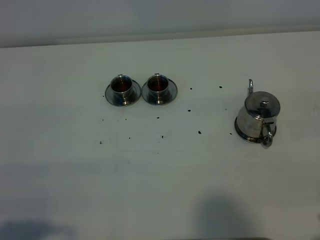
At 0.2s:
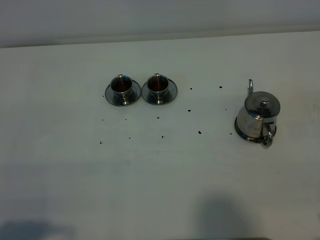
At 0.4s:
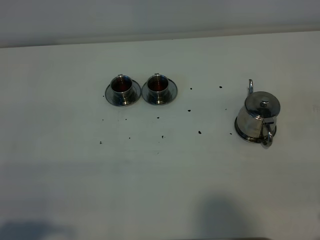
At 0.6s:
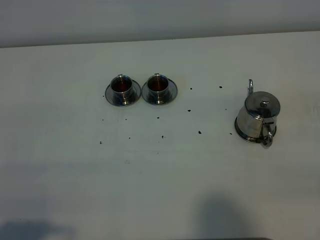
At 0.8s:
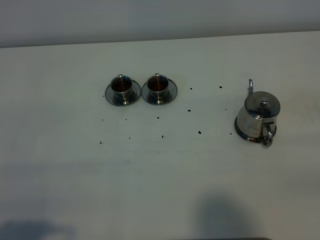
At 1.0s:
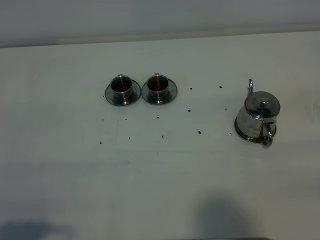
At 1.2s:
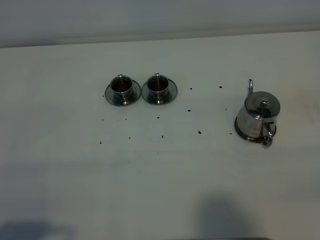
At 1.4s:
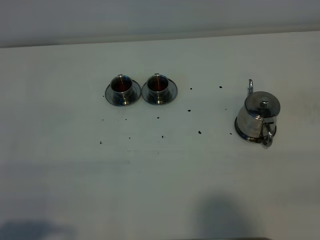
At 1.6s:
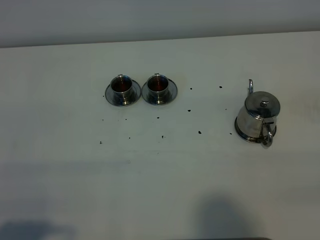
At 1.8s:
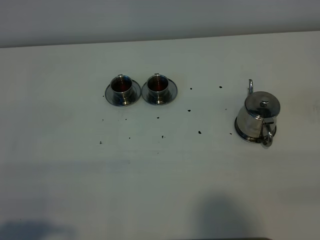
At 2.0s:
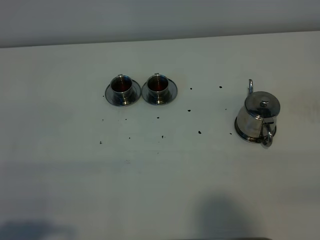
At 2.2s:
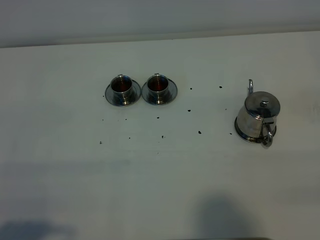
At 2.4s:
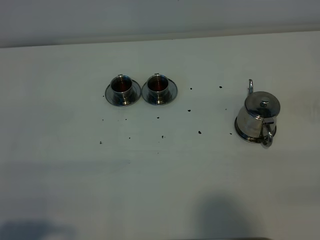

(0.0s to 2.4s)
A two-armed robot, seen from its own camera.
Task of the whole recording: grasp the stainless steel teapot and pour the tea into the two stainless steel teacups one by one, put the stainless steel teapot back in its original place.
1.2s - 2.4s: Both grippers stay about where they are.

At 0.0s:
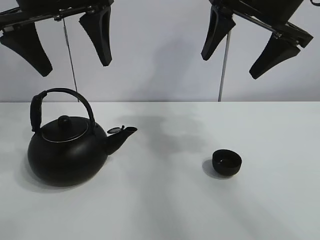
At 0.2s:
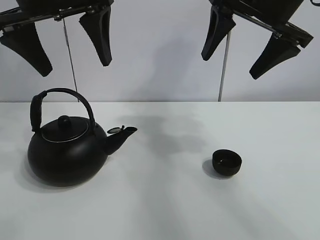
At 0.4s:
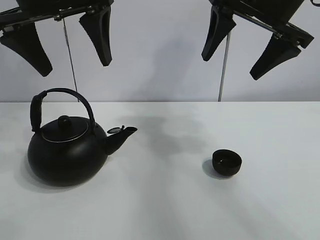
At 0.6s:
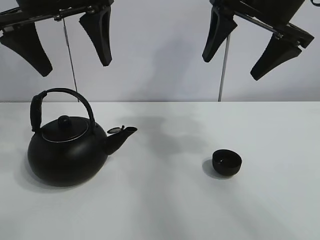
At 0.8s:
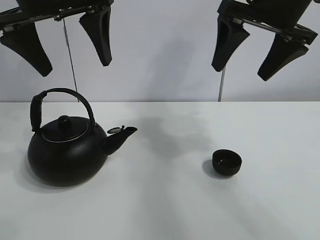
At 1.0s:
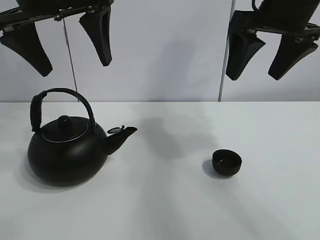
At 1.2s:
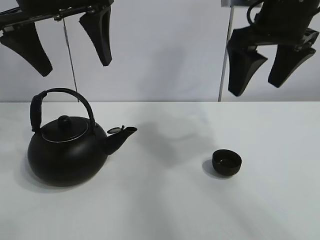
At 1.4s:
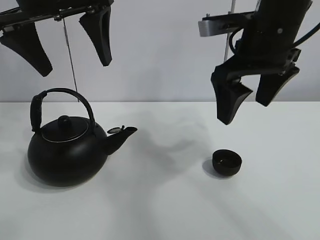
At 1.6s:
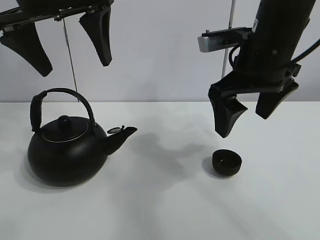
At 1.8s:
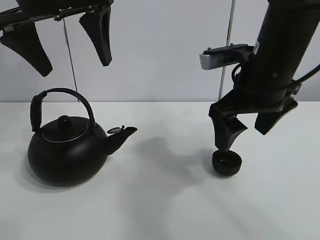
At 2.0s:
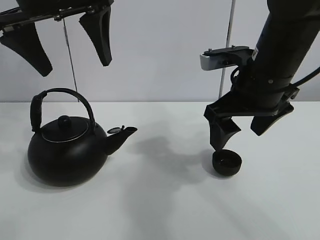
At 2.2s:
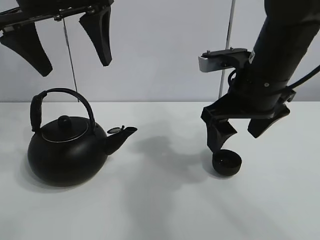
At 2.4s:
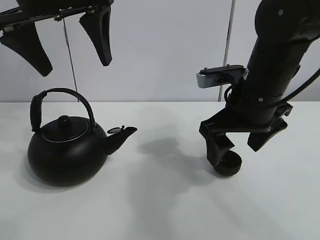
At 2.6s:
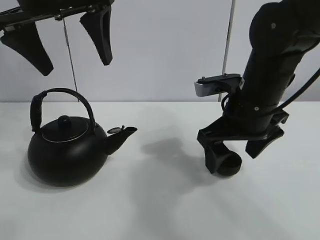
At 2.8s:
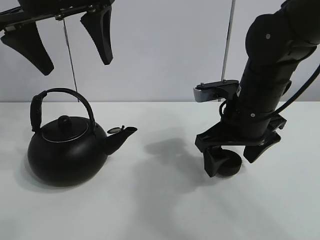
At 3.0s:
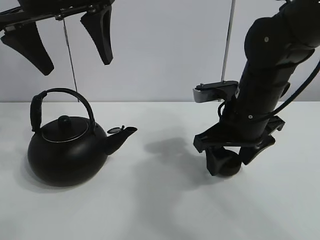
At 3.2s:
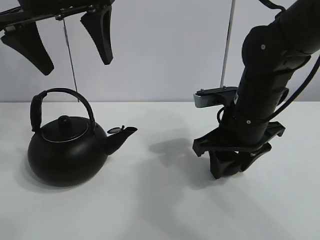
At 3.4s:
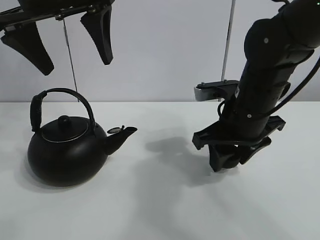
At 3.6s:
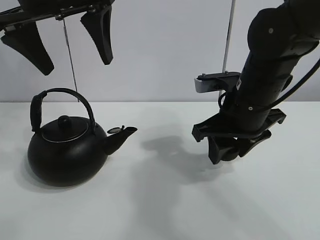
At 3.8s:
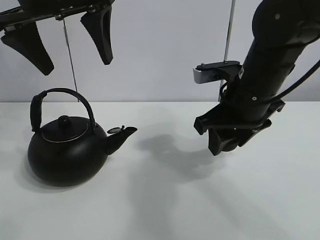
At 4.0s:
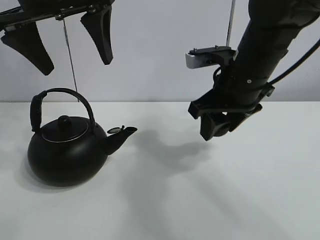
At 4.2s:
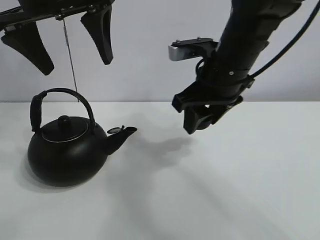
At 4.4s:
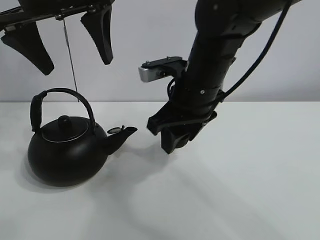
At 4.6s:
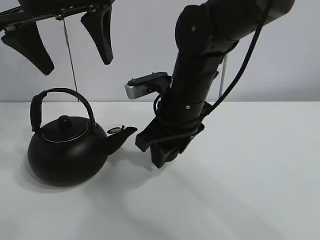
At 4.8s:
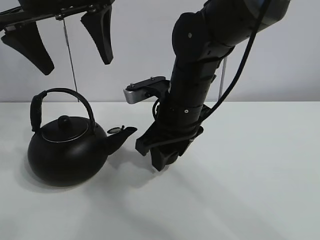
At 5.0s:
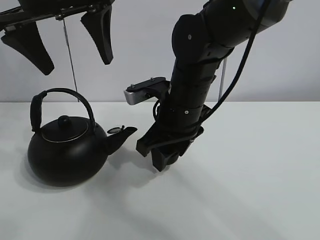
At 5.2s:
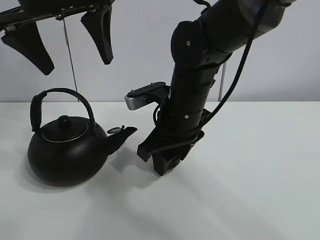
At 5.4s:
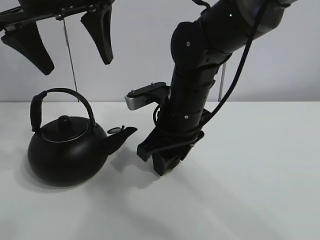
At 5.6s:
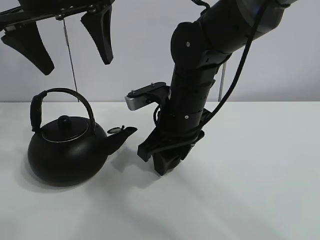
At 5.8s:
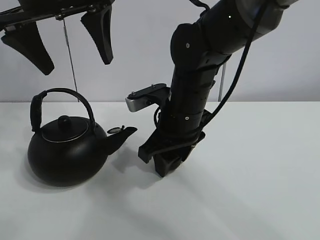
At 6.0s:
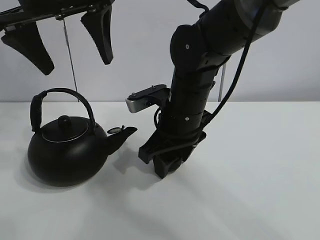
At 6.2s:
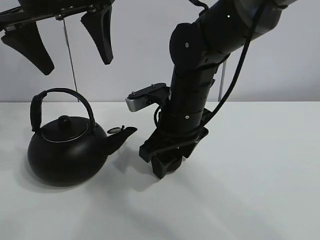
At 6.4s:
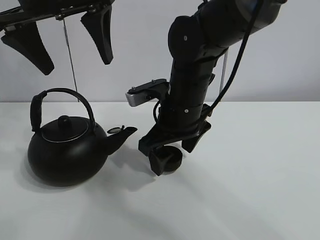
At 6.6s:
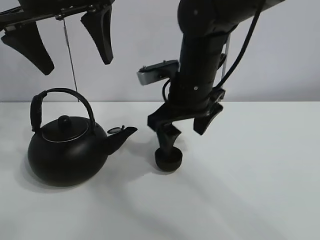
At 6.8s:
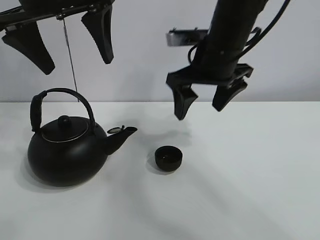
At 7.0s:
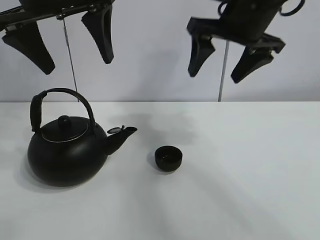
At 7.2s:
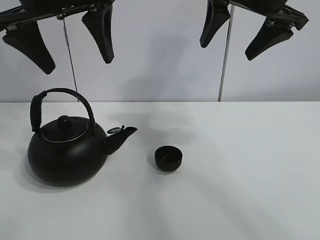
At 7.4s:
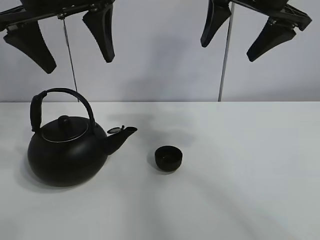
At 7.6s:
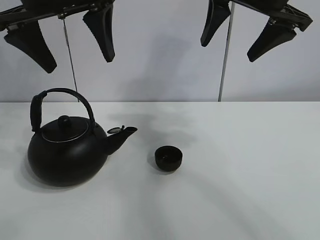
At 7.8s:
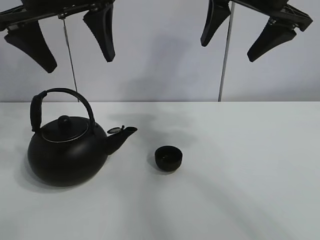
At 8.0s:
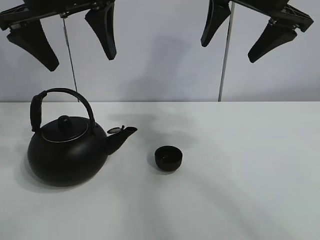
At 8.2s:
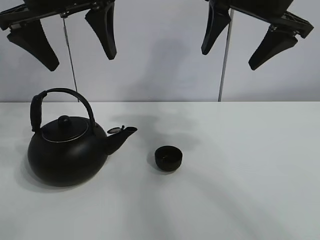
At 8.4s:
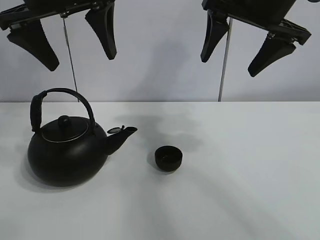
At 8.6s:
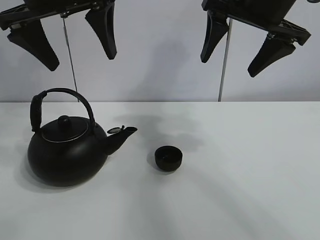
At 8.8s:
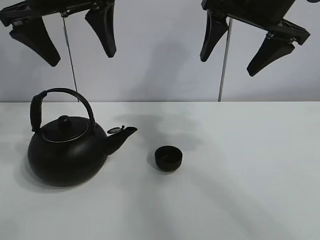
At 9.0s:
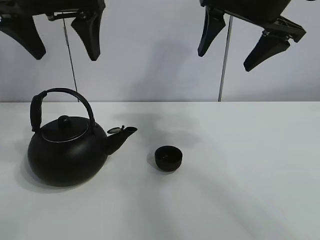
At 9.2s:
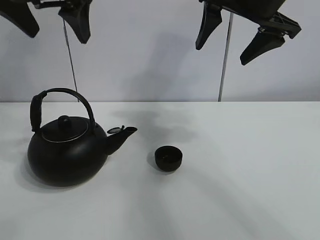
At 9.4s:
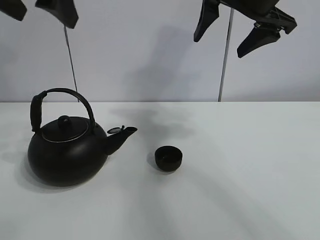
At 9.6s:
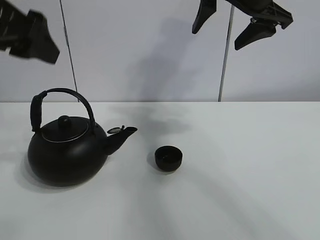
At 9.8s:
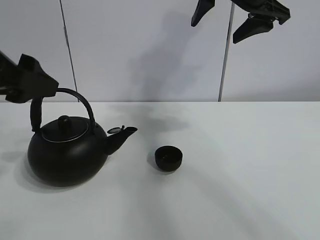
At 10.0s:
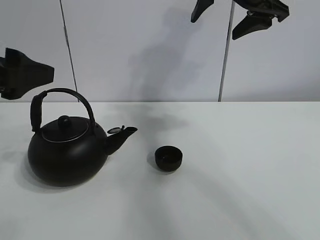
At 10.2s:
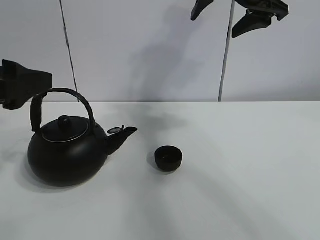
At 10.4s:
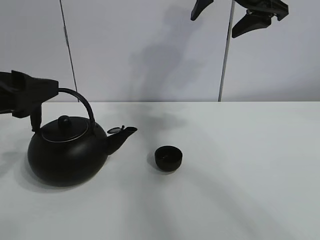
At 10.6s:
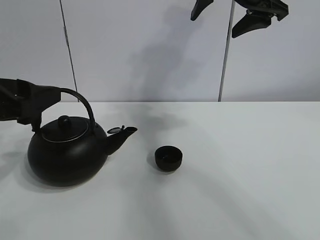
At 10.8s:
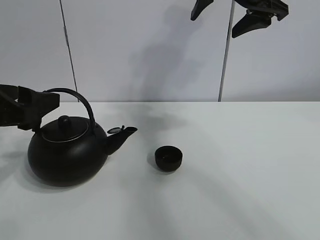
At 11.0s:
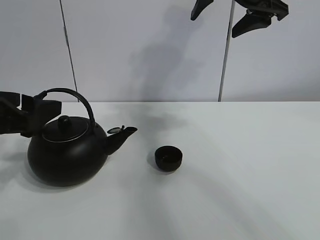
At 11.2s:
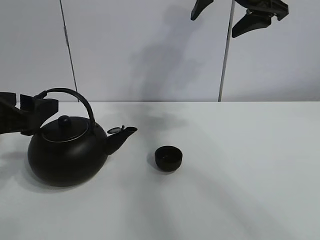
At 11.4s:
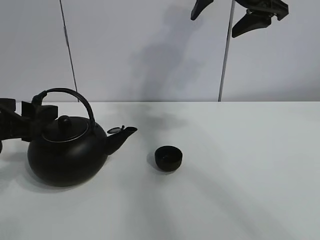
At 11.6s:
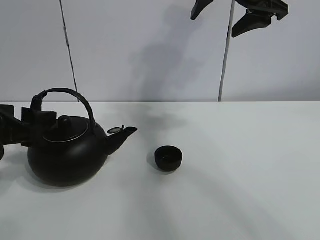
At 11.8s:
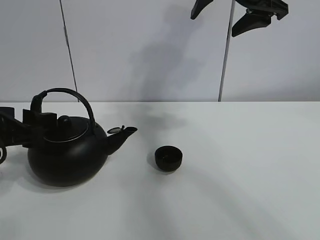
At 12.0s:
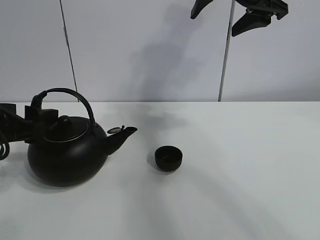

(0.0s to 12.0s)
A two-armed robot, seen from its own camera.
Task of the whole recording: pour tea into the teacup.
Step, 0.0s - 3.0s: Pick up the teacup with the right gripper.
Step, 3.4s - 6.2s: Place the teacup in the center of view with the right gripper.
1.6s - 3.0s: The right gripper goes approximately 10 cm downward, and closes its fingers.
3.0s - 4.4s: The right gripper shifts roughly 5 cm to the left, and closes its fingers.
4.4s - 6.0s: The right gripper changes place by some 5 cm.
6.0s - 7.6s: The right gripper travels upward and to the right by about 25 cm, and opens up.
7.6s - 9.0s: The grippers make only small movements.
9.0s - 10.4s: The left gripper travels downward, backward and to the left by about 20 cm.
10.4s - 12.0s: The left gripper goes some 5 cm downward.

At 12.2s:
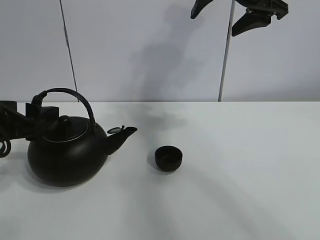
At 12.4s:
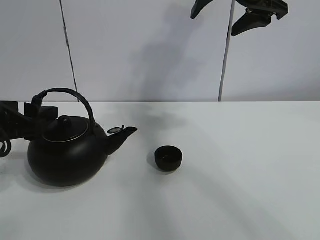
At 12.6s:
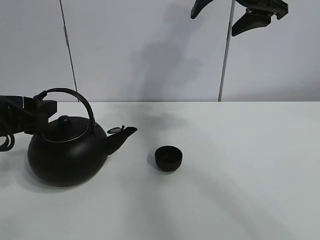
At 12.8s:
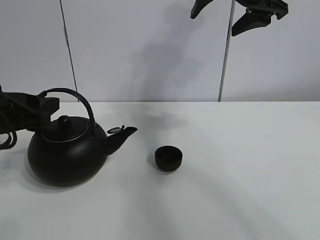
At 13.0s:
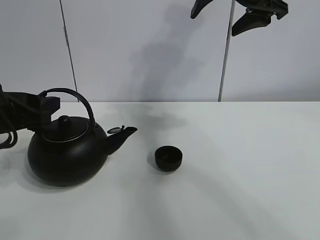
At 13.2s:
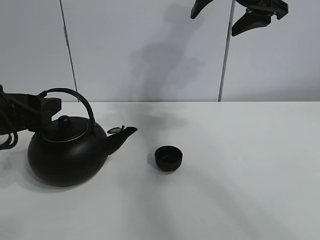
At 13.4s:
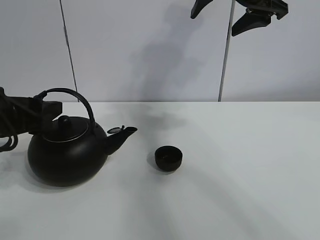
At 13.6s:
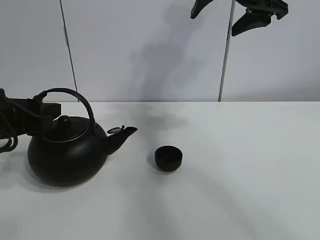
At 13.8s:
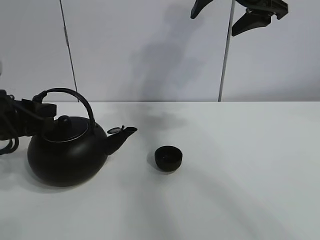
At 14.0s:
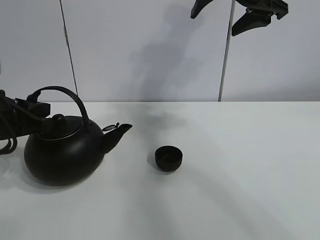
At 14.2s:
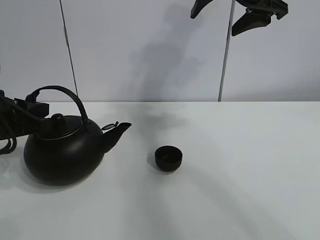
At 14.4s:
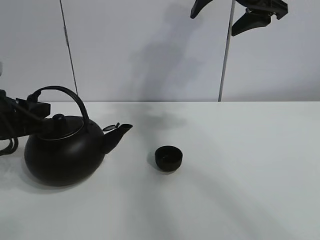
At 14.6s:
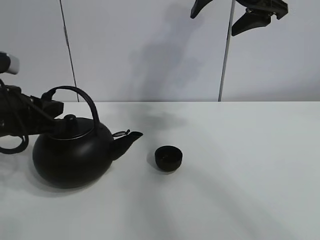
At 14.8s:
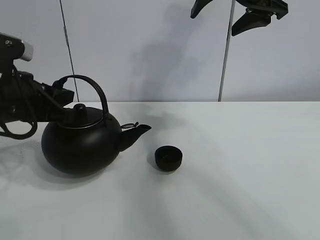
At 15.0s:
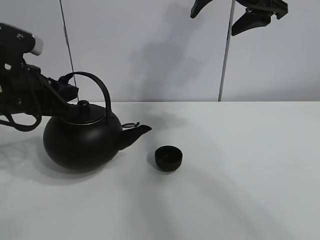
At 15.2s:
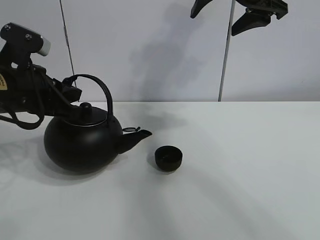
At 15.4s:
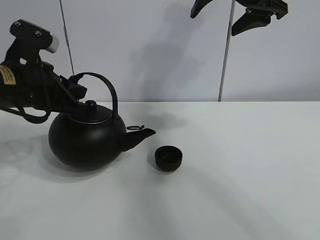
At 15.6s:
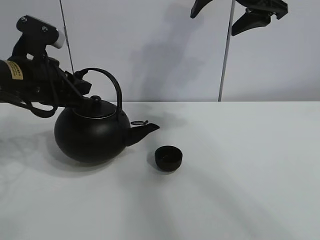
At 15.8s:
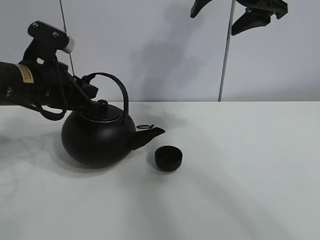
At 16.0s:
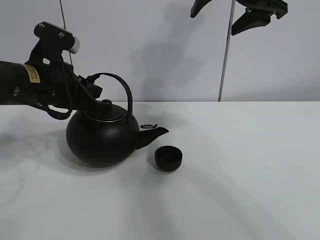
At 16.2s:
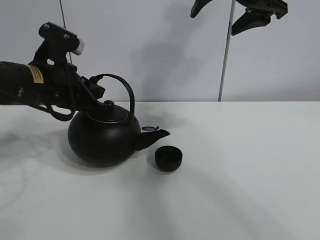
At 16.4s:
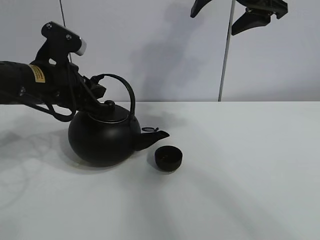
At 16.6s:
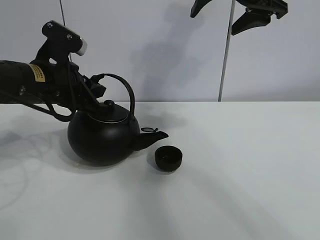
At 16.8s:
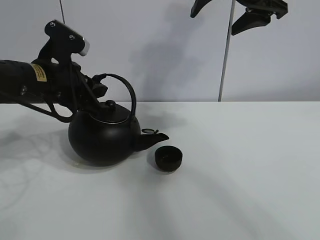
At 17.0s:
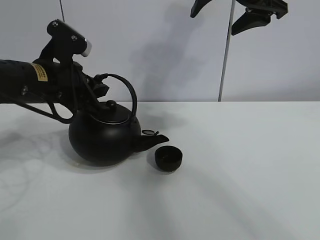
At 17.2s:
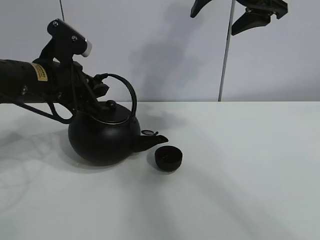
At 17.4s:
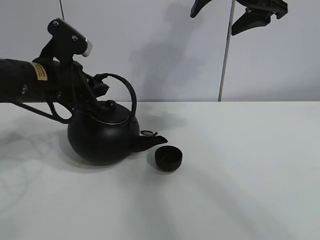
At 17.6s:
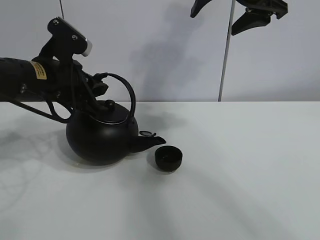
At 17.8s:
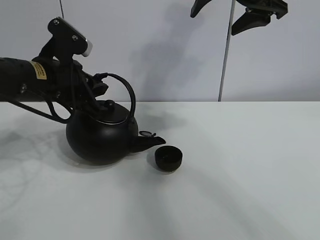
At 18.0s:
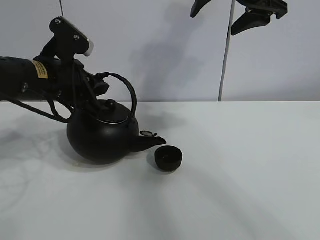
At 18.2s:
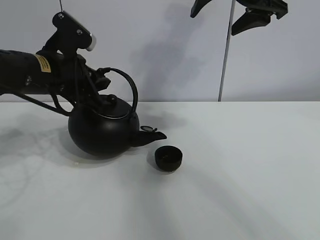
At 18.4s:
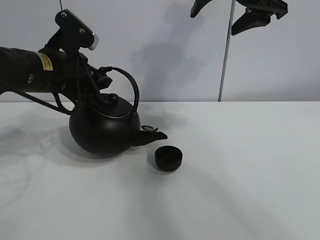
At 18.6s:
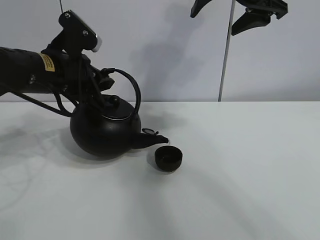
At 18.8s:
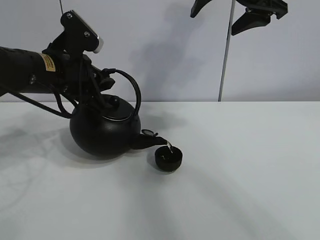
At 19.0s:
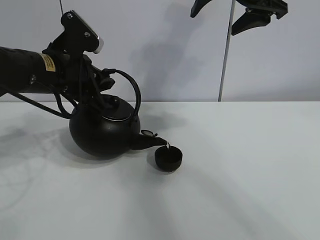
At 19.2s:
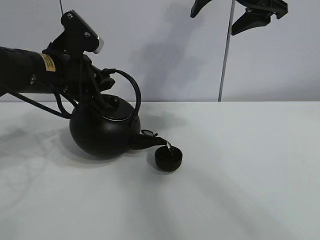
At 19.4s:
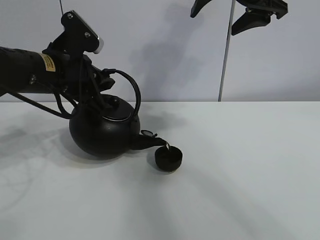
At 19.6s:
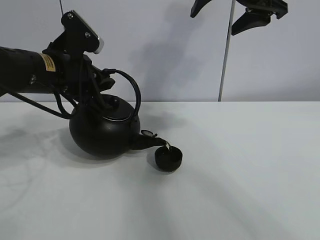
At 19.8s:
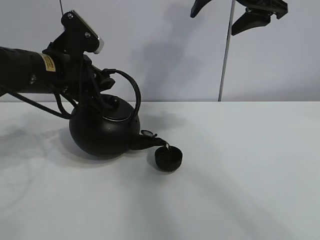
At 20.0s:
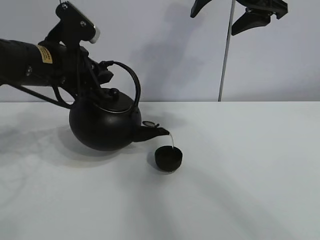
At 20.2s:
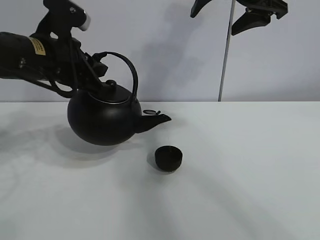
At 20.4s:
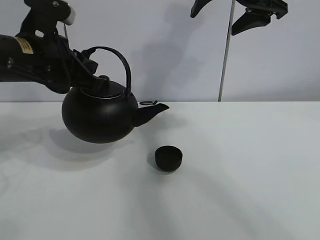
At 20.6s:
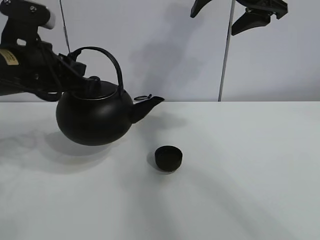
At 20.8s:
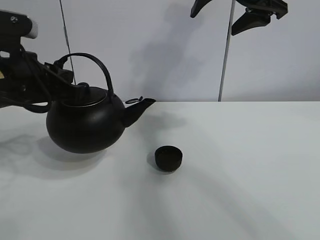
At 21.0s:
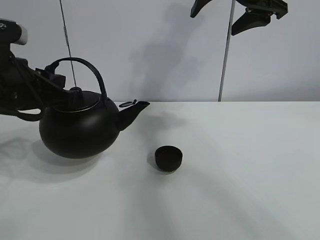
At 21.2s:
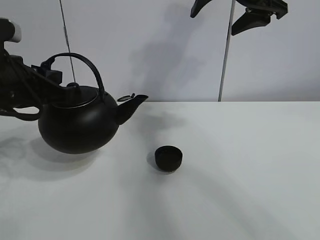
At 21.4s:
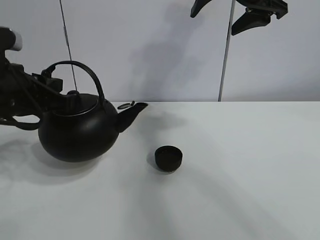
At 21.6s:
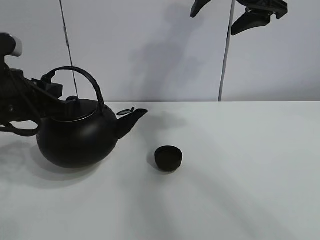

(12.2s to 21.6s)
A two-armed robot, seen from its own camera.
Task of the whole recording: pour tea into the teacup.
Step, 14.2s - 20.0s: Pour tea into the teacup with the left gripper.
12.2s - 13.8s: The left gripper closes up.
13.8s - 15.4s: The left gripper changes place by some 5 cm, and closes.
15.4s - 18.4s: The grippers move only a little.
18.4s - 20.0s: Both grippers stay about where they are.
20.0s - 21.6s: The left gripper shifts some 10 cm backward and to the left.
